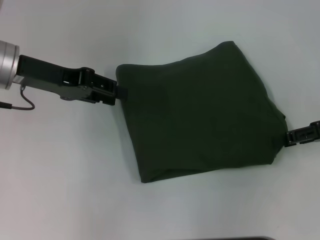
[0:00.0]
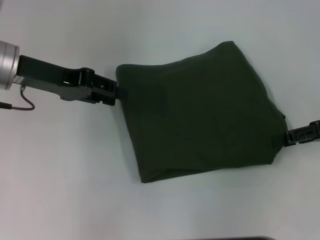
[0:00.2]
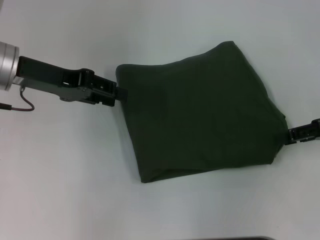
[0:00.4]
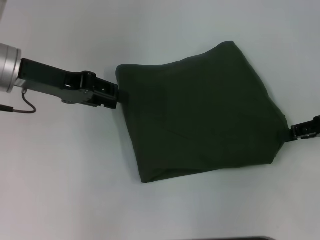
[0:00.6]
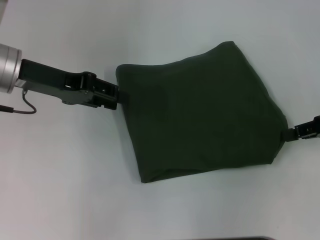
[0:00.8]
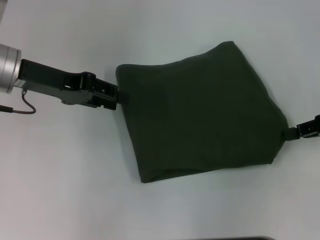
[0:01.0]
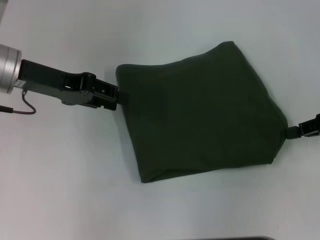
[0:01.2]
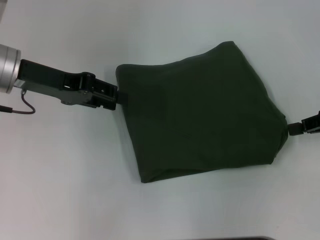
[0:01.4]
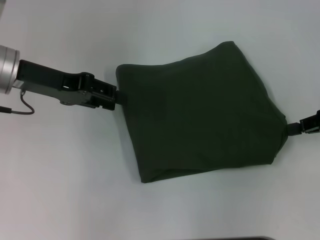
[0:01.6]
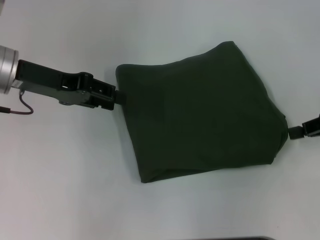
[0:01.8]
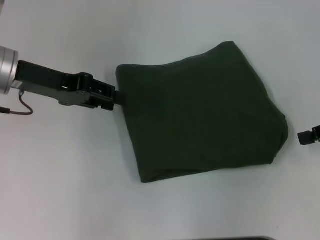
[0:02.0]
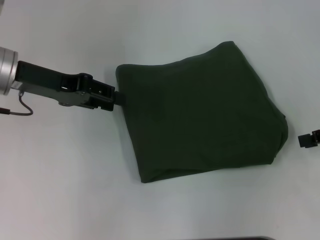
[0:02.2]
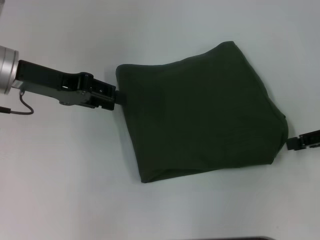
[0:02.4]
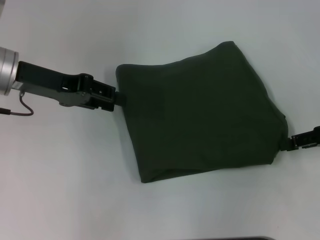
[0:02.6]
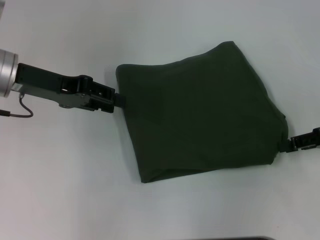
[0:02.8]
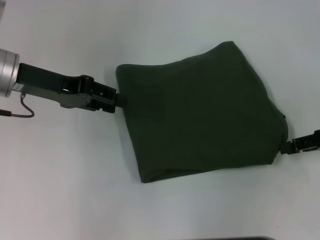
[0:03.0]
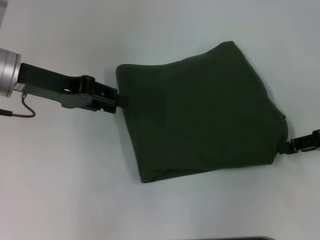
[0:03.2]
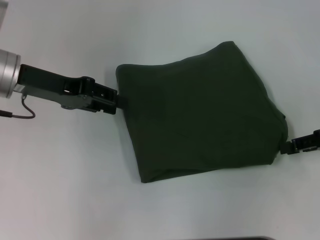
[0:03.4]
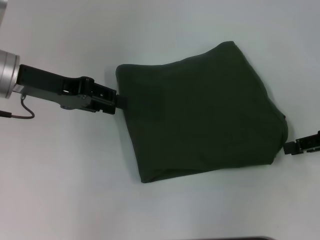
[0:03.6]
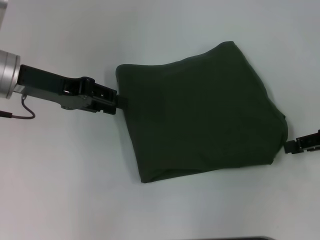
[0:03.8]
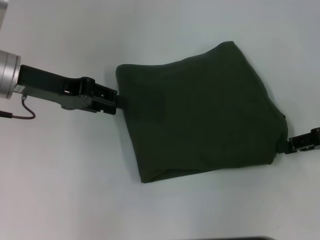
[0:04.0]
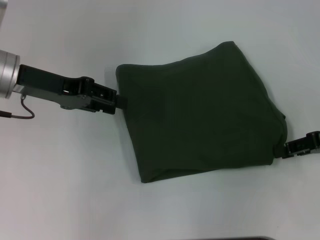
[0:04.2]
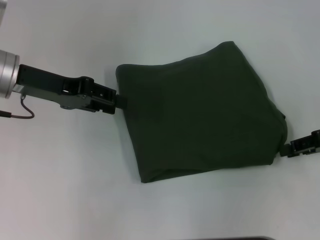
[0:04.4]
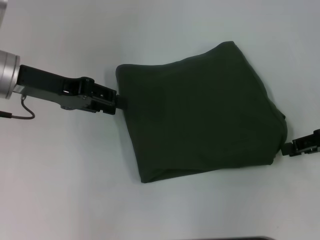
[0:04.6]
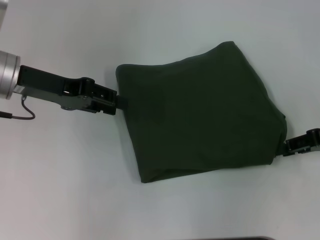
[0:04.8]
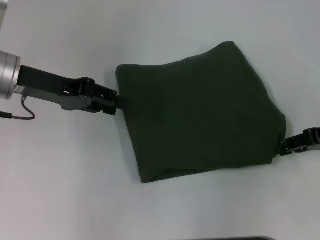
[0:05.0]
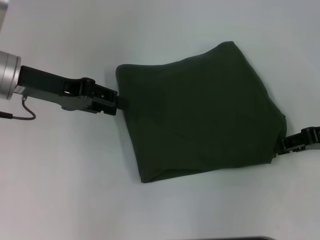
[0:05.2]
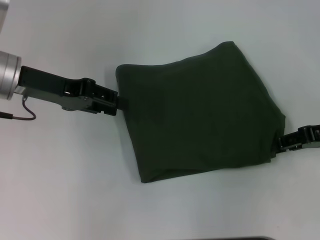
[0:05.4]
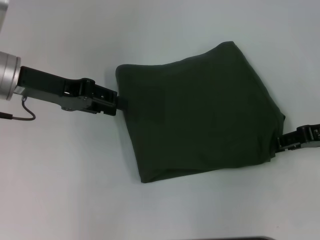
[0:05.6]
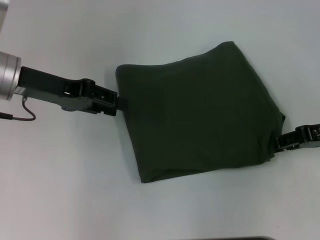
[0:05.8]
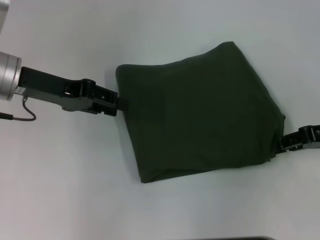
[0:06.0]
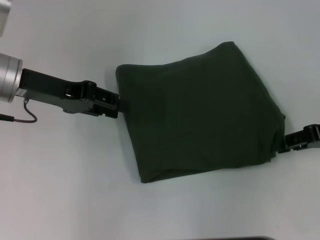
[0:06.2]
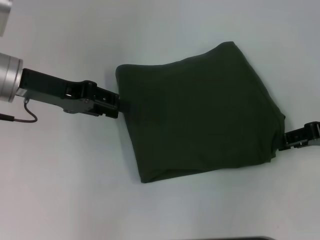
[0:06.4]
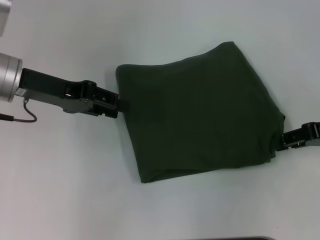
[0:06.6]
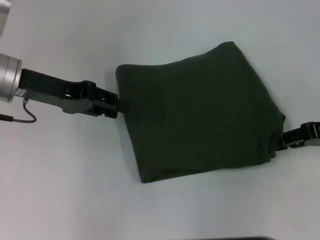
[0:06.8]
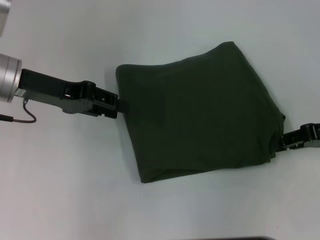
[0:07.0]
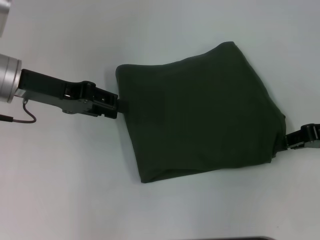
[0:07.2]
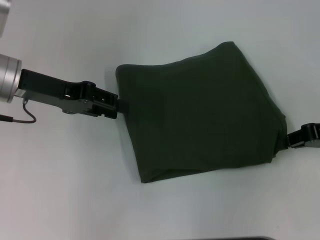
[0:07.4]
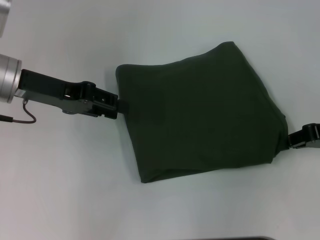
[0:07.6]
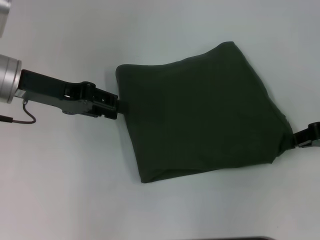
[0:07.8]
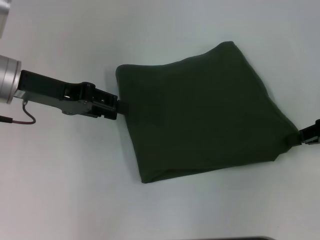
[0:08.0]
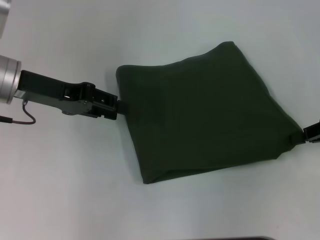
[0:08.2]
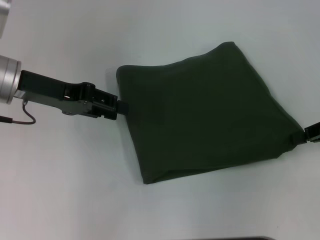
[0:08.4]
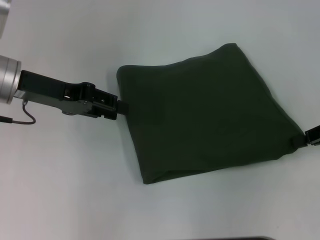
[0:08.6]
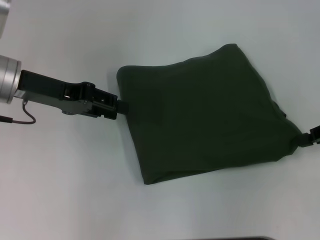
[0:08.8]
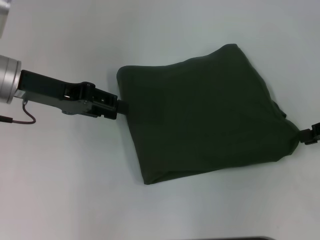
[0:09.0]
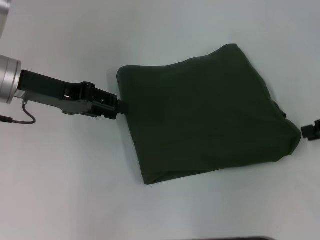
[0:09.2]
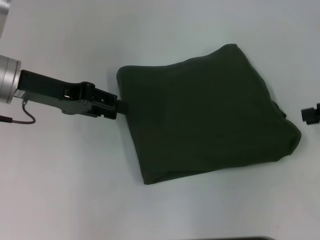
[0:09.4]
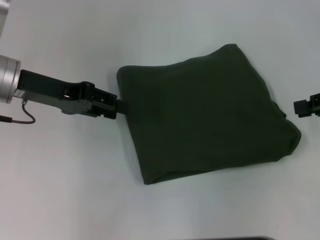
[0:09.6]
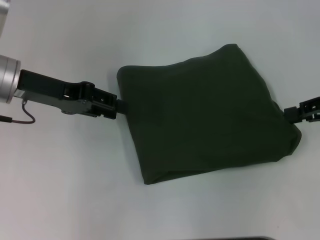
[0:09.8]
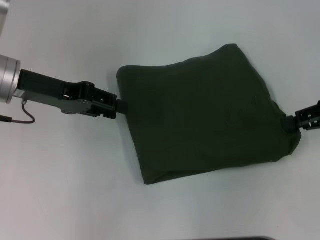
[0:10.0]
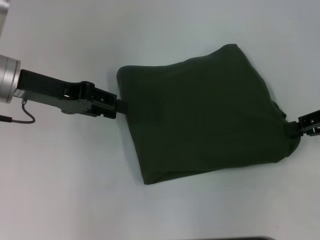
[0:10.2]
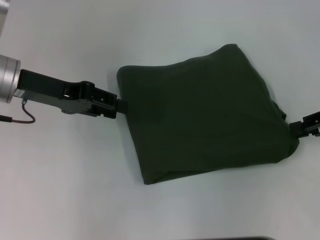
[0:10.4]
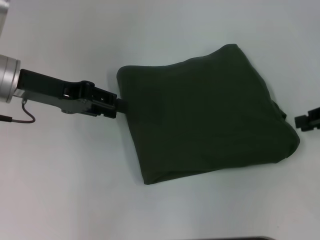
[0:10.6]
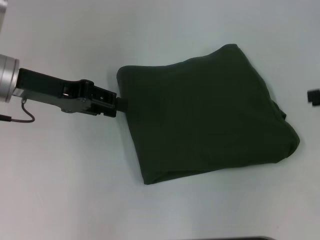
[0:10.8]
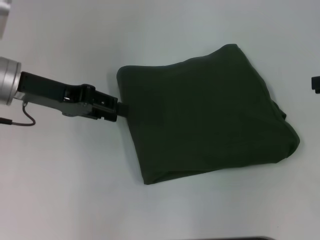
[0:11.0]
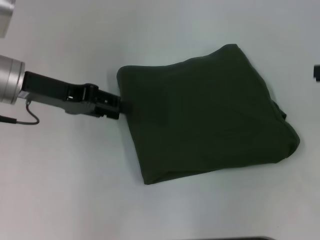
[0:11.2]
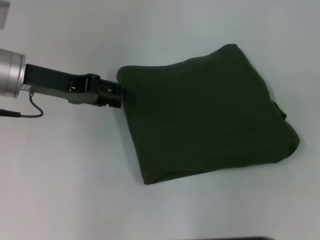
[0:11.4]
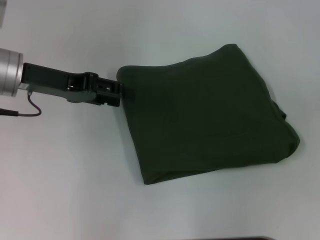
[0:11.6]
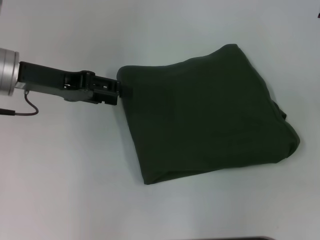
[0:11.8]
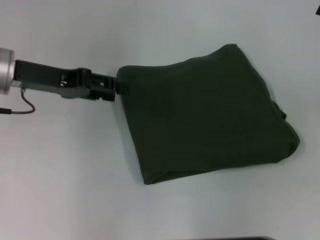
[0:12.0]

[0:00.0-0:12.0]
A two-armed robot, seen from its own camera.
0:00.0 to 0:01.6: The right gripper closes up.
0:01.6 to 0:03.0: The right gripper opens its fingers.
0:03.0 to 0:04.4: Both grippers stay about where they are.
0:04.4 to 0:06.0: The grippers stay close to where they were, moving slightly.
0:07.6 to 0:10.4: There are only small adjustments of the grippers.
0:10.4 to 0:12.0: The right gripper opens up.

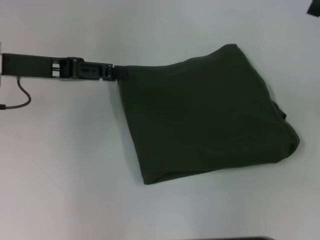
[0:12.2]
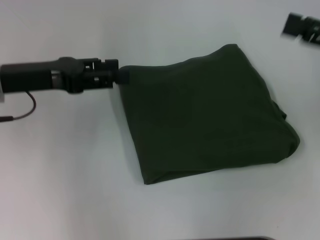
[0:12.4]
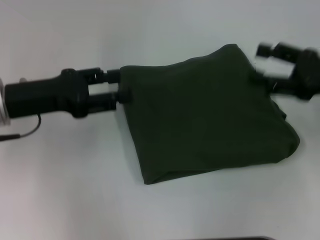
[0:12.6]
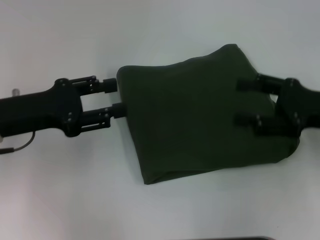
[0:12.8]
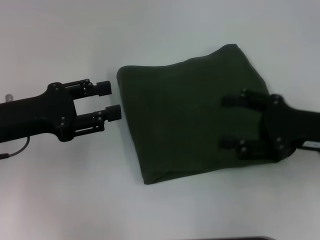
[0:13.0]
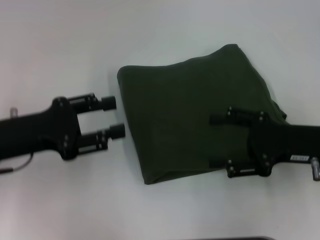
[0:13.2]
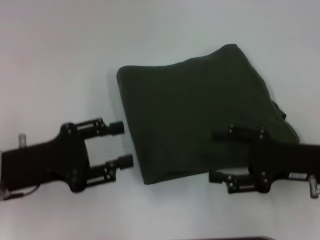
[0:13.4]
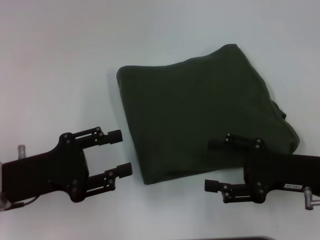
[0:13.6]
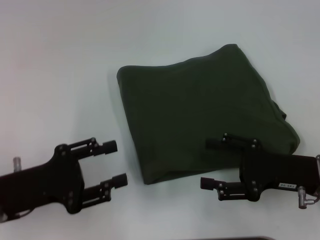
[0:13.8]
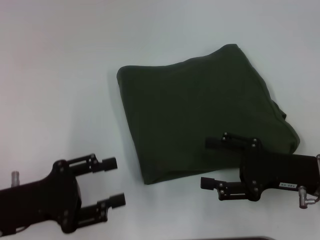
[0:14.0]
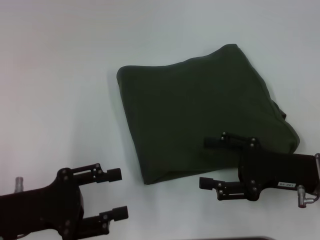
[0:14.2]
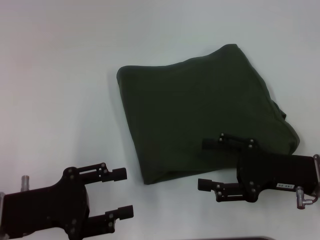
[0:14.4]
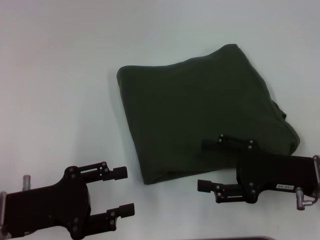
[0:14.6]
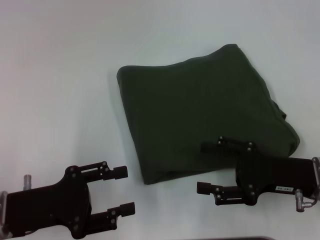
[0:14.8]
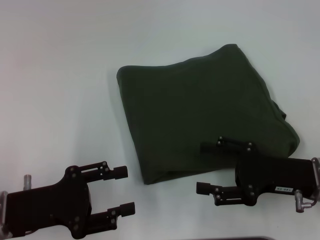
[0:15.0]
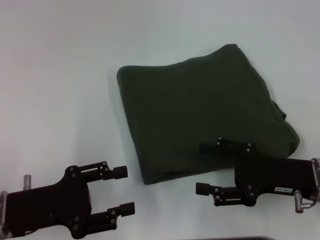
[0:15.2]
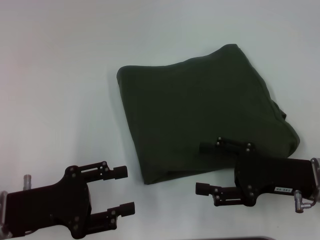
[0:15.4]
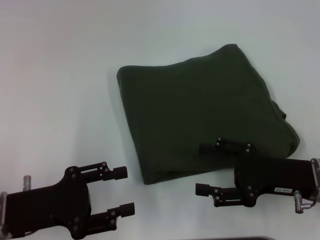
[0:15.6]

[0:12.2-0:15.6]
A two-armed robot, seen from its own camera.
0:12.2 to 0:13.8: The left gripper shifts approximately 20 cm backward and downward; the right gripper heads downward, to the left and backward, covering about 20 cm.
0:13.8 to 0:15.6: The grippers stay close to where they were, moving slightly.

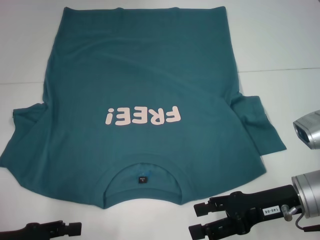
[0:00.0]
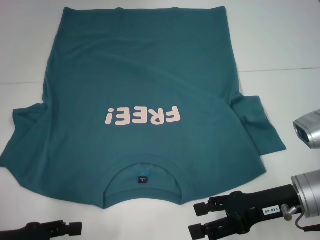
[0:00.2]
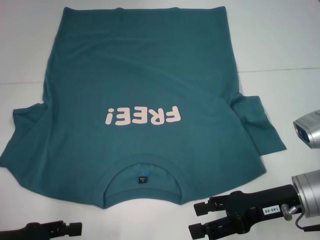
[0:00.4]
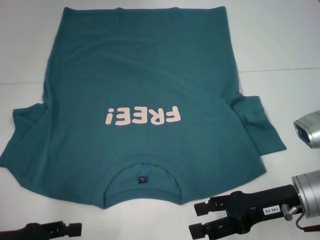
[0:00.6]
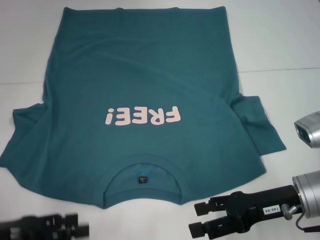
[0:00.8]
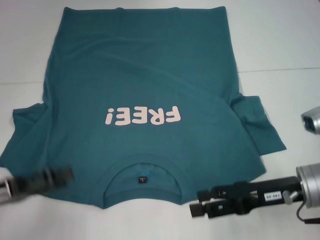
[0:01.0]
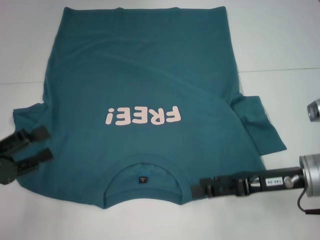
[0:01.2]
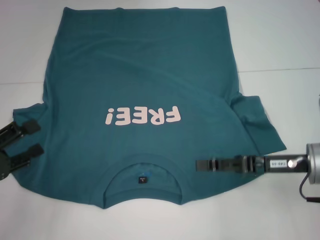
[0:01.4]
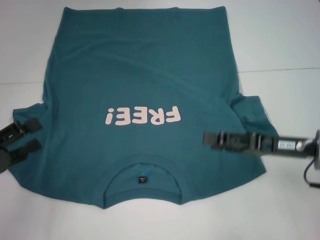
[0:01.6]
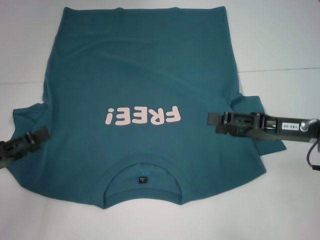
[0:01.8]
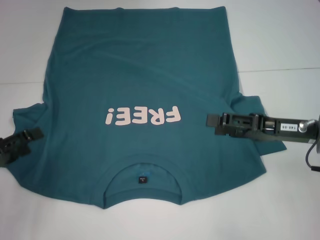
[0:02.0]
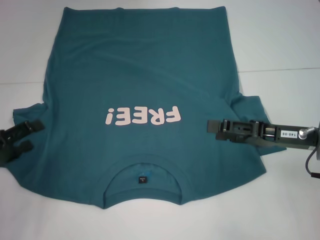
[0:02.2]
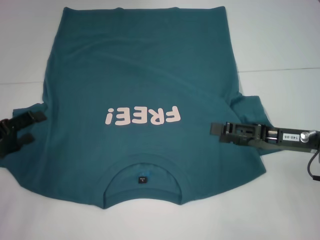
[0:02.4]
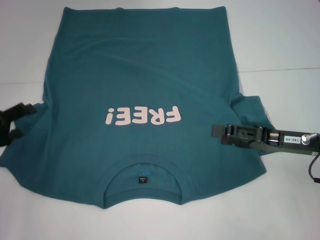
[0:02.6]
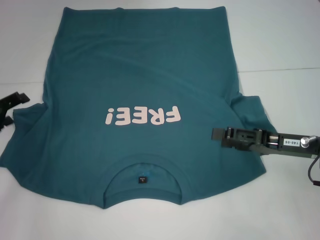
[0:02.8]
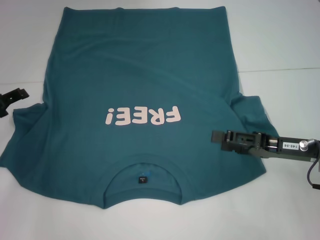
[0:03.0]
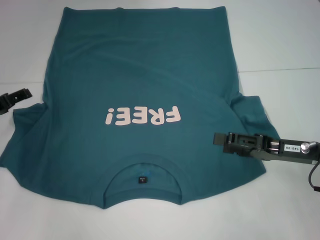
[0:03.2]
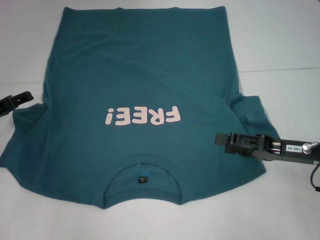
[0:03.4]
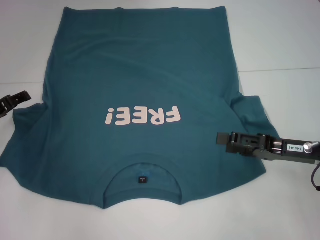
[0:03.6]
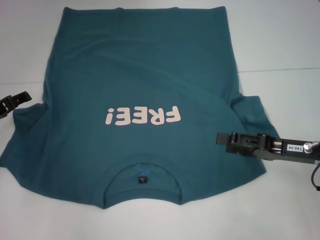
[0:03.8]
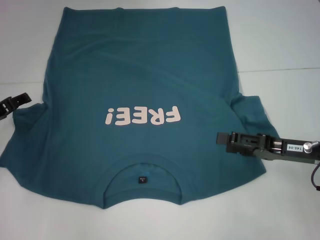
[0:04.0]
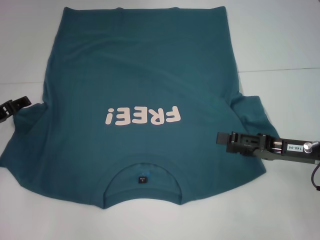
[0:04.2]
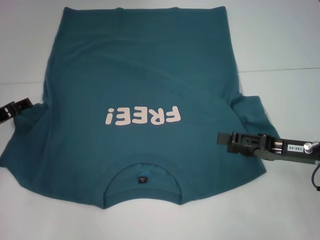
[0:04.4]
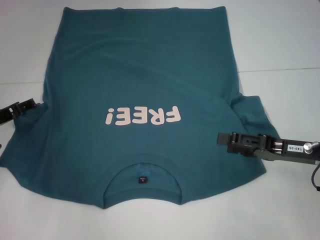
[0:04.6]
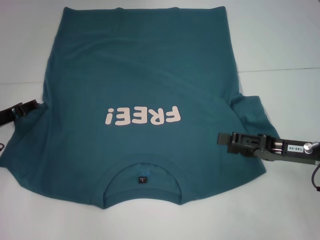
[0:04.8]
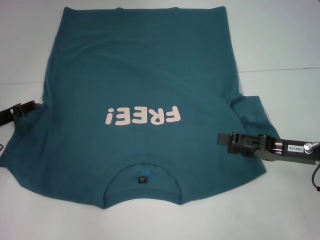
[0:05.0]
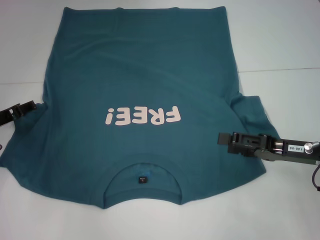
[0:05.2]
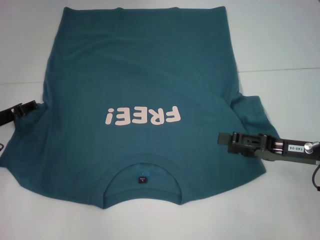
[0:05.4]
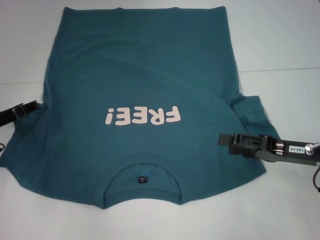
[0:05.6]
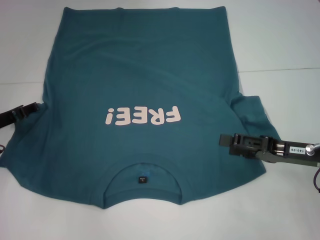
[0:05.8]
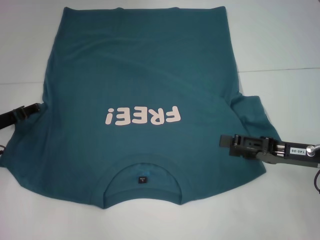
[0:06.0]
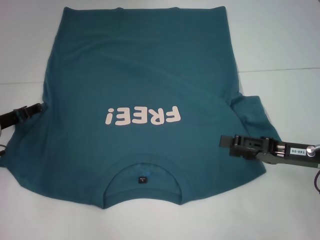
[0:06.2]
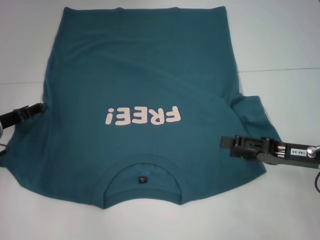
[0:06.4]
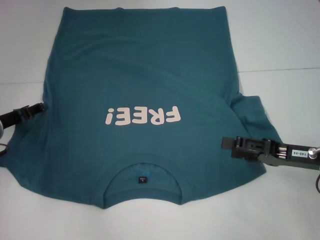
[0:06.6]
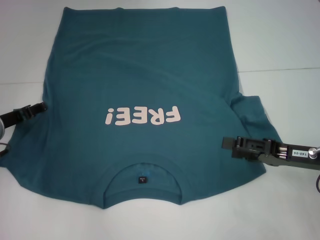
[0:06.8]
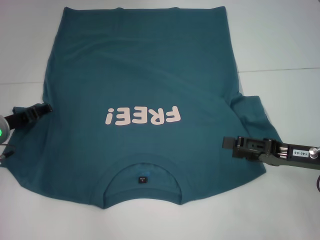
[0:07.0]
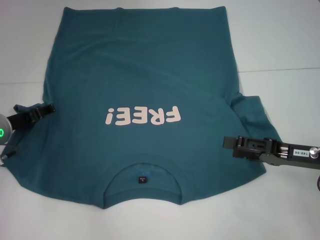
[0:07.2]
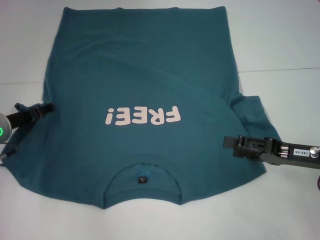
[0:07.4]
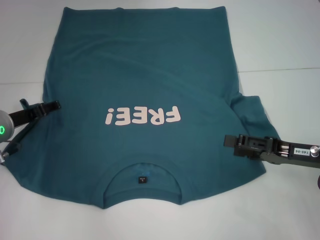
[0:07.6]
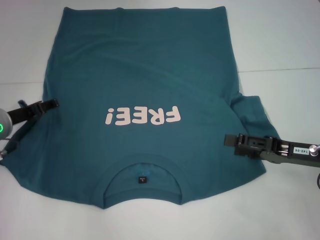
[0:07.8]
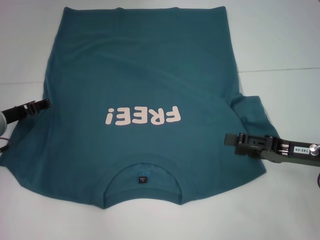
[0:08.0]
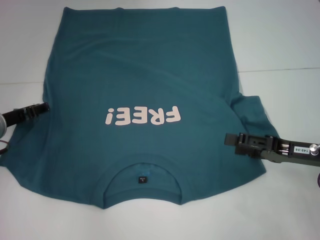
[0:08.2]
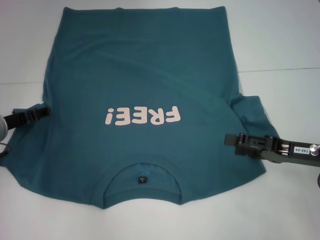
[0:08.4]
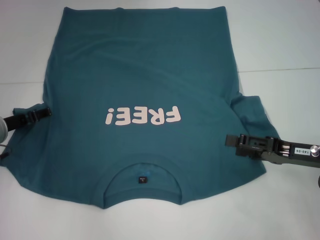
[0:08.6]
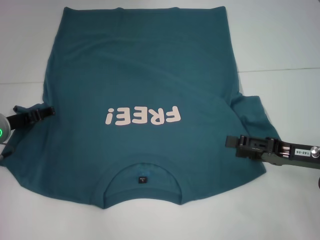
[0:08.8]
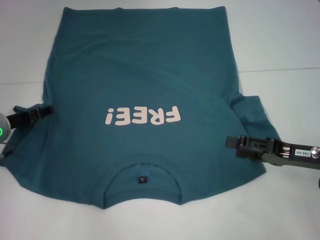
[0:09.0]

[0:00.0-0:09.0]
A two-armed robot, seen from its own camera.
0:00.0 to 0:01.6: The left gripper moves approximately 5 cm.
0:01.6 to 0:03.0: The left gripper heads forward, covering approximately 10 cm.
0:03.0 to 0:06.0: The grippers move only a little.
0:06.0 to 0:09.0: The grippers move only a little.
